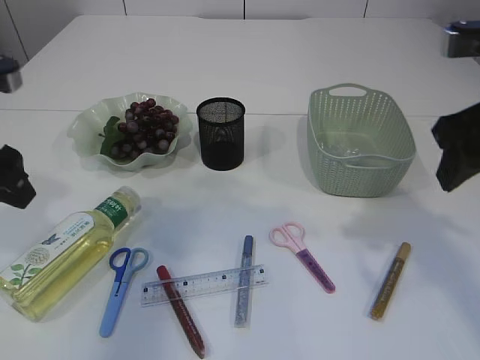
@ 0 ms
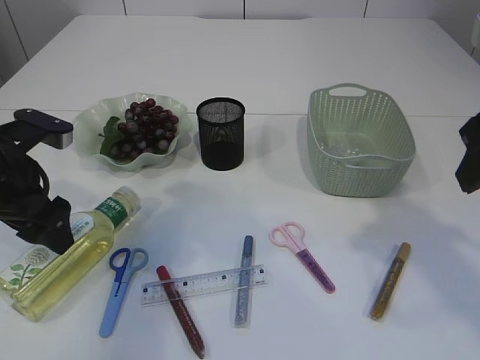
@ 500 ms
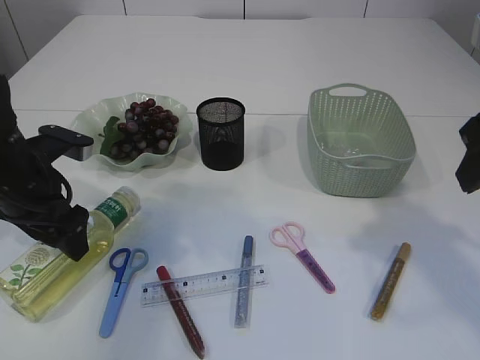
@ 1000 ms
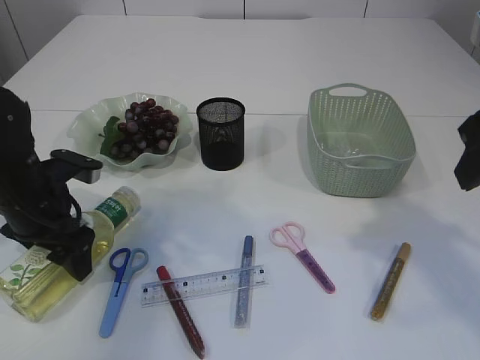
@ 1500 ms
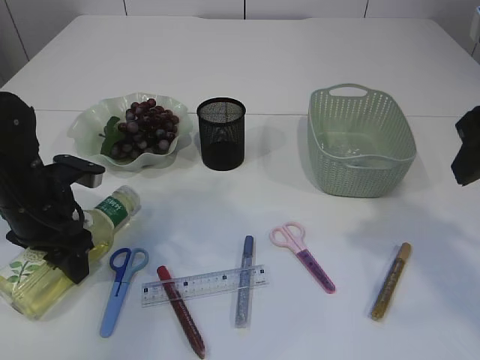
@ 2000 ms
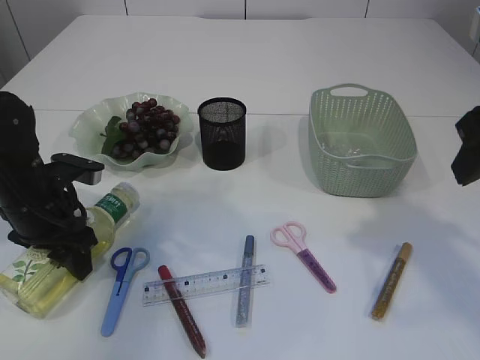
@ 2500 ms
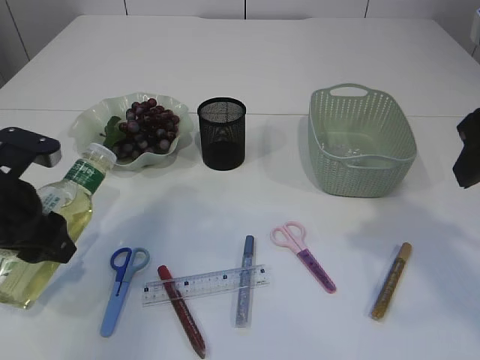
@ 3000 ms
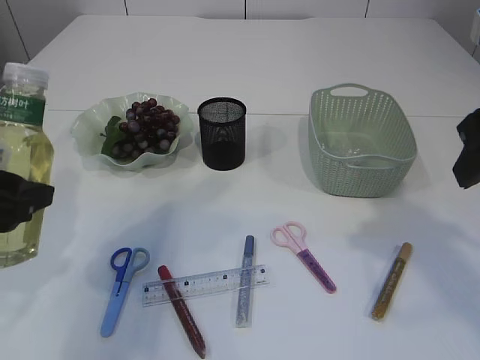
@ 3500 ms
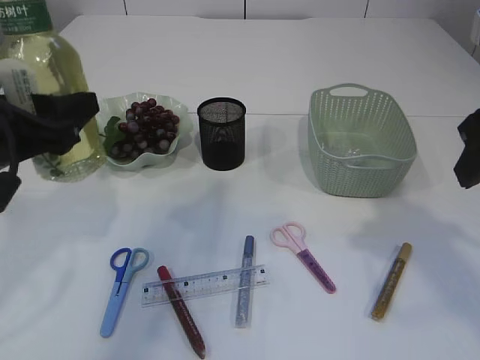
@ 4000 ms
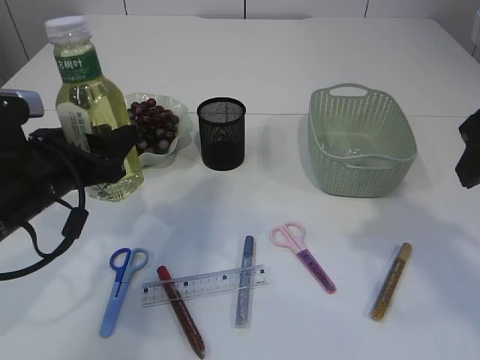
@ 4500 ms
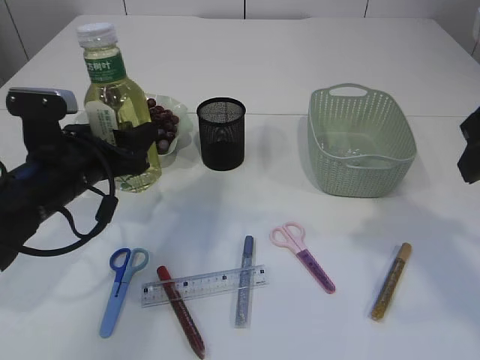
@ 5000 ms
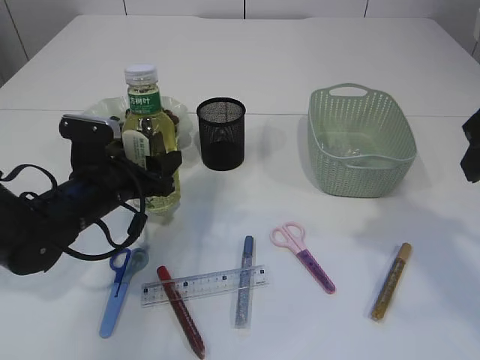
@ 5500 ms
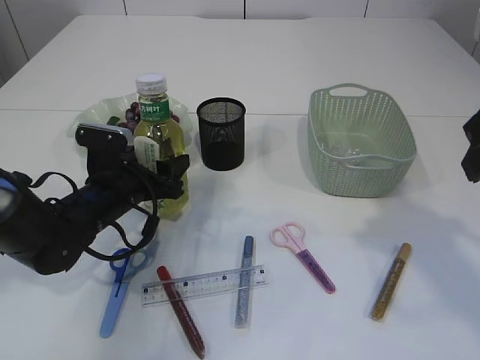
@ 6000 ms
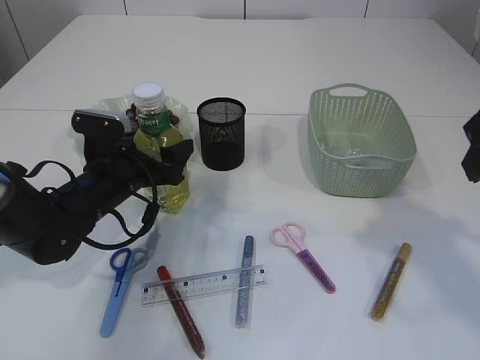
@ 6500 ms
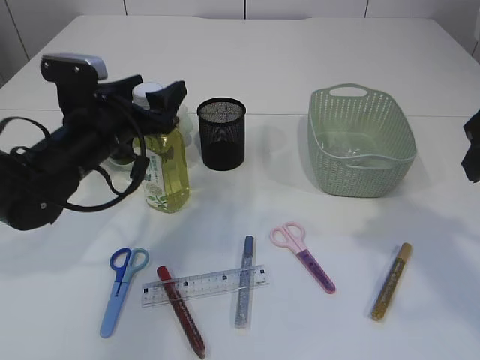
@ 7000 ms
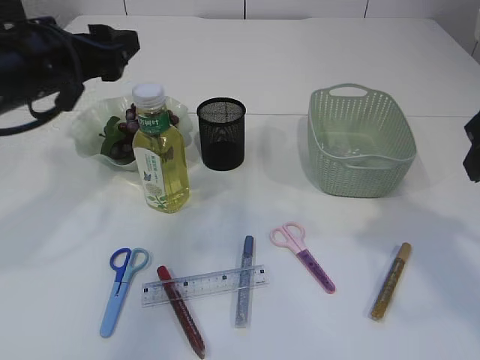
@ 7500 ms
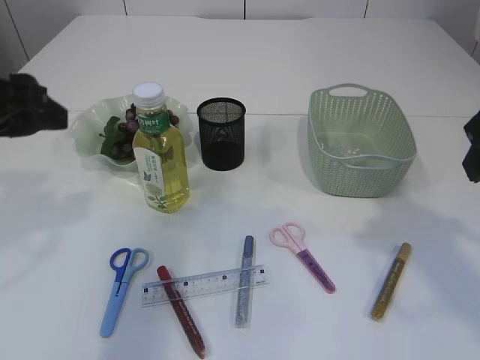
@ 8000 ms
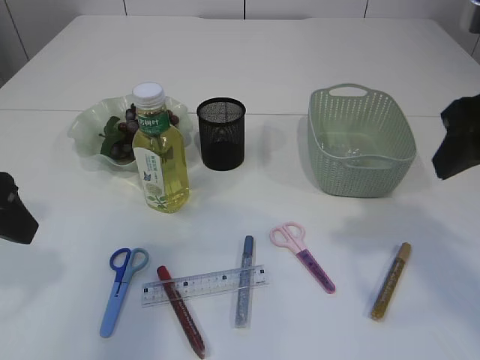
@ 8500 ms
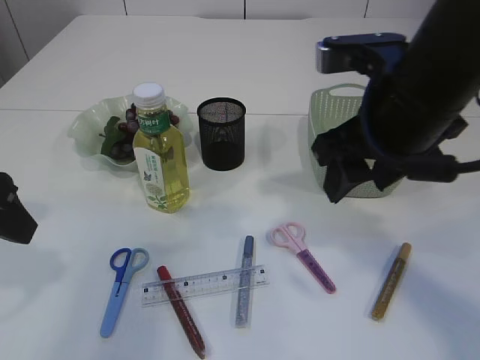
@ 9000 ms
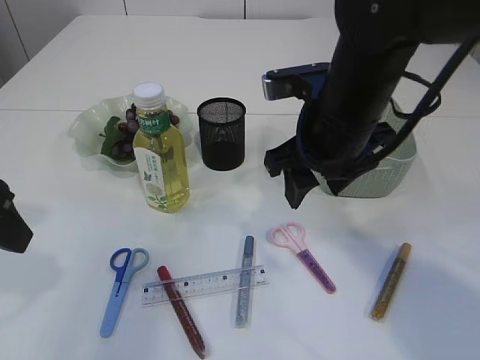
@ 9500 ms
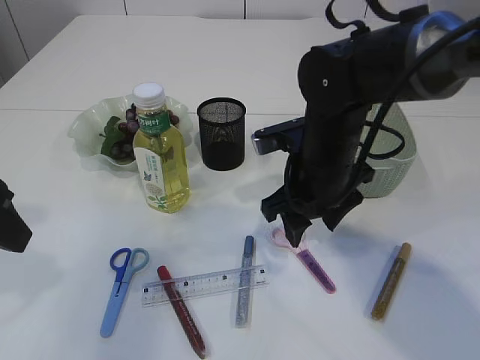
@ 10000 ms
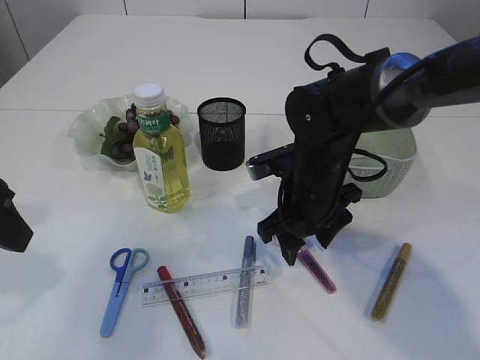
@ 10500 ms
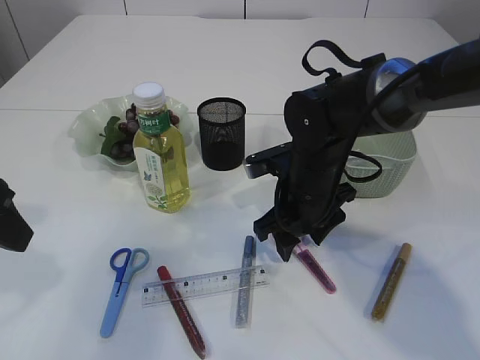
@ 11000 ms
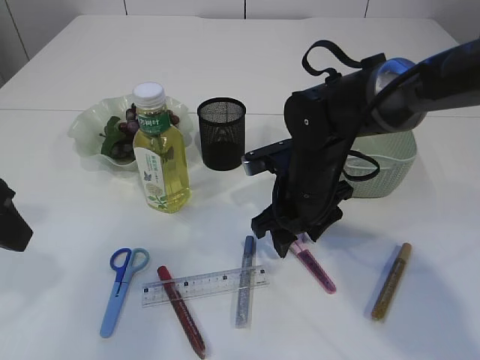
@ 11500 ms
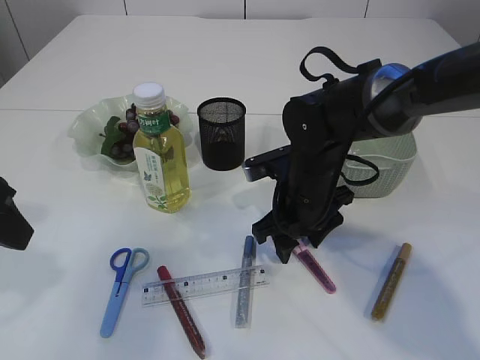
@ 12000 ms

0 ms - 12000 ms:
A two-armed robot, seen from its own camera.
Step, 0 ms - 2500 ms: Pick up the bottle with the left arm.
Step, 3000 ms - 7000 ms: Place the bottle.
0 ms - 2000 ms: The left gripper moves downward, some 15 cm.
2000 ms - 4000 ms: The left gripper heads upward and backward, covering roughly 15 cm.
4000 ms - 6000 ms: The left gripper travels downward and forward by approximately 20 cm.
6000 ms - 8000 ms: The left gripper is displaced upward and backward by approximately 25 cm.
8000 ms - 10000 ms: The left gripper changes place by roughly 5 cm. Meanwhile the right gripper heads to the left, downward and forward, covering roughly 25 cm.
10000 ms - 12000 ms: The right gripper moves downward, about 5 cm.

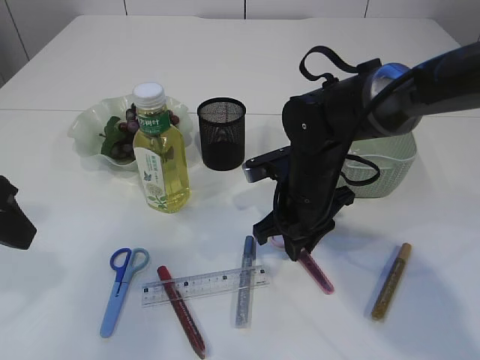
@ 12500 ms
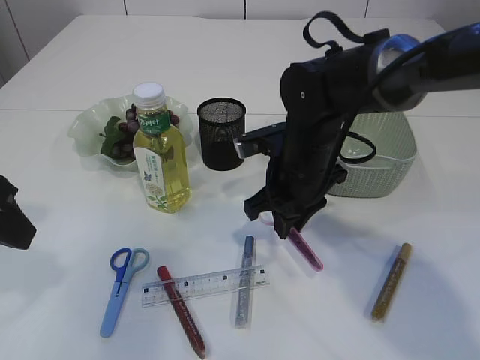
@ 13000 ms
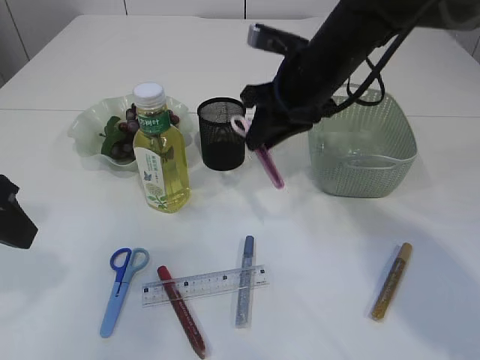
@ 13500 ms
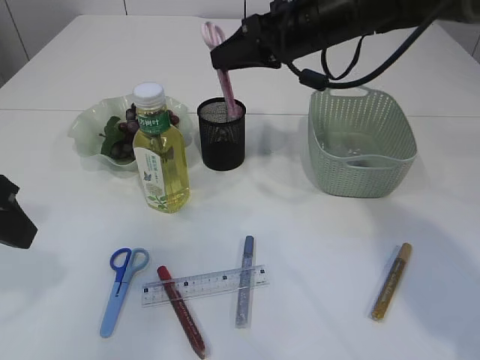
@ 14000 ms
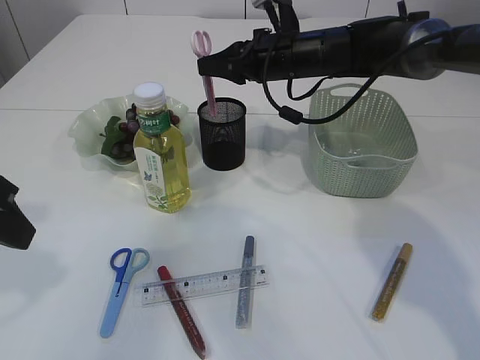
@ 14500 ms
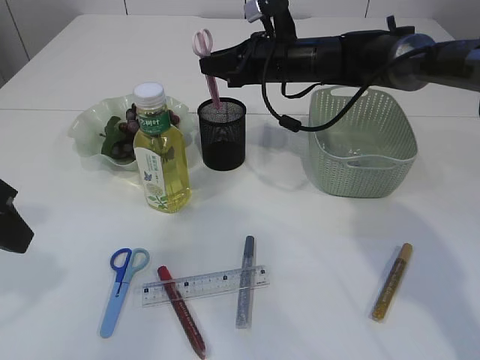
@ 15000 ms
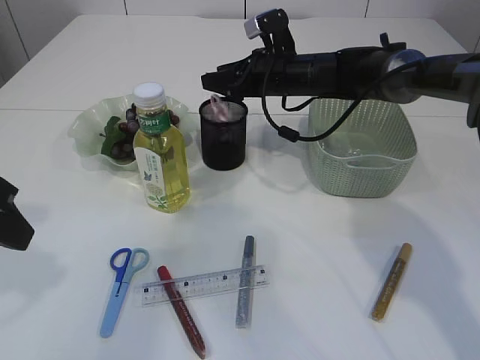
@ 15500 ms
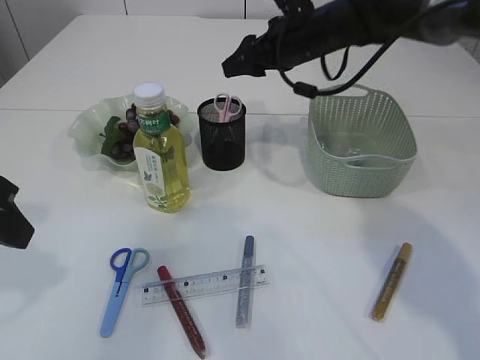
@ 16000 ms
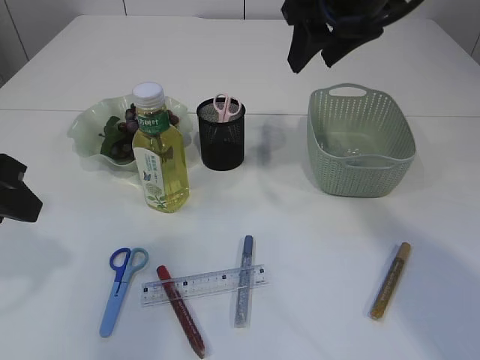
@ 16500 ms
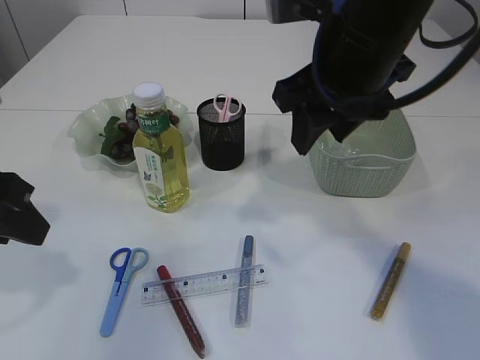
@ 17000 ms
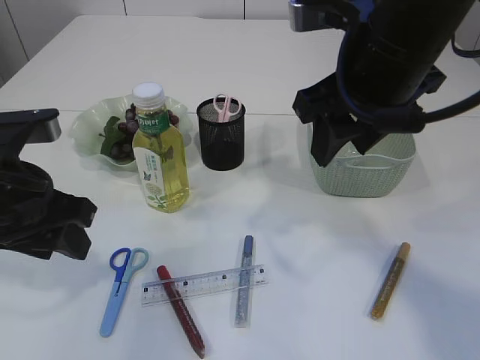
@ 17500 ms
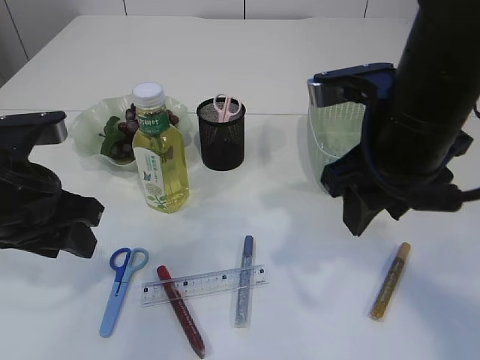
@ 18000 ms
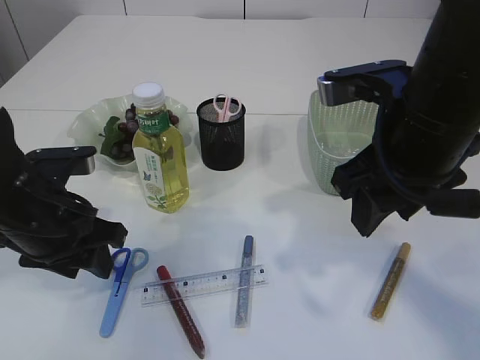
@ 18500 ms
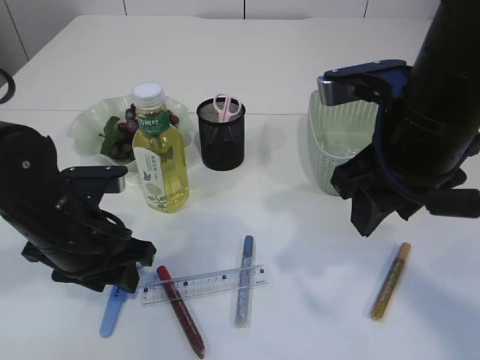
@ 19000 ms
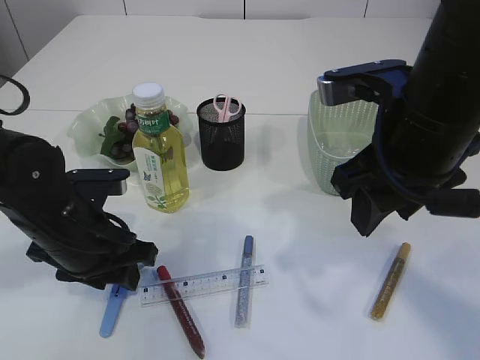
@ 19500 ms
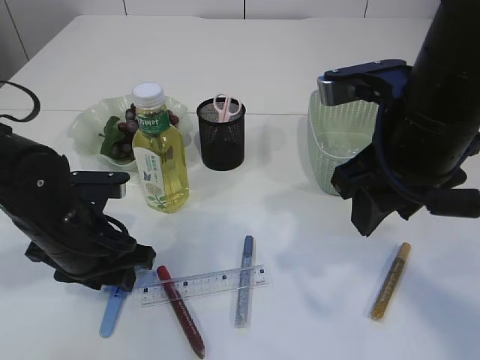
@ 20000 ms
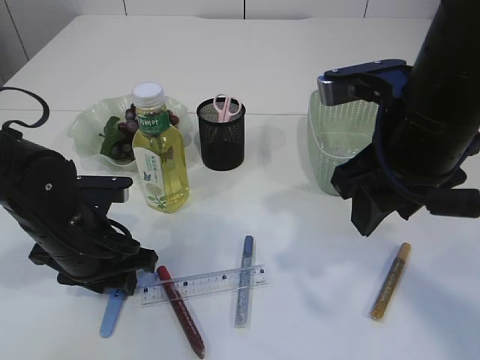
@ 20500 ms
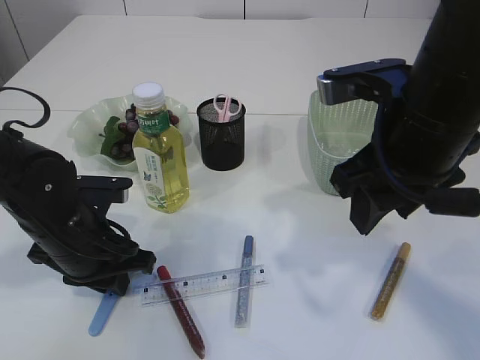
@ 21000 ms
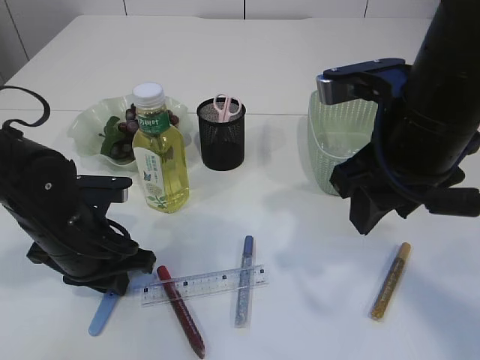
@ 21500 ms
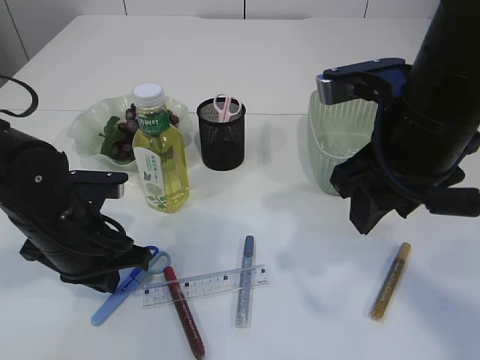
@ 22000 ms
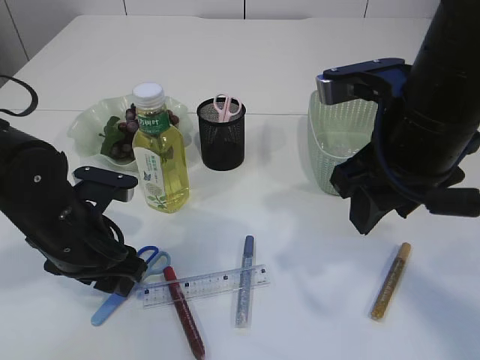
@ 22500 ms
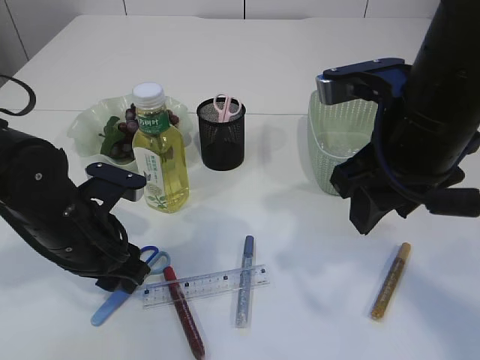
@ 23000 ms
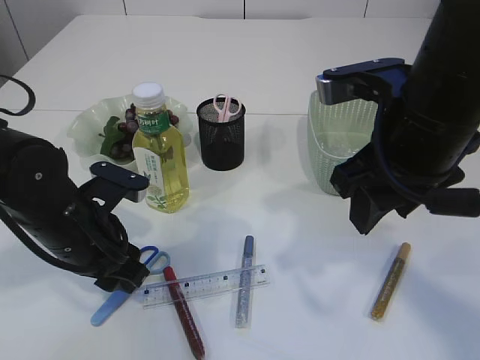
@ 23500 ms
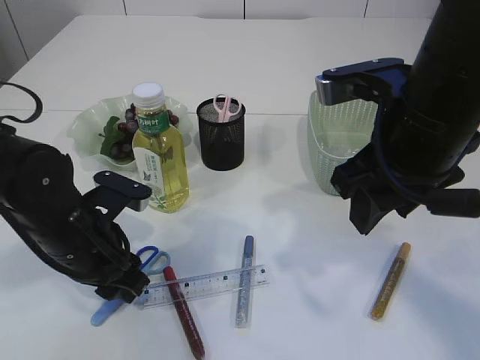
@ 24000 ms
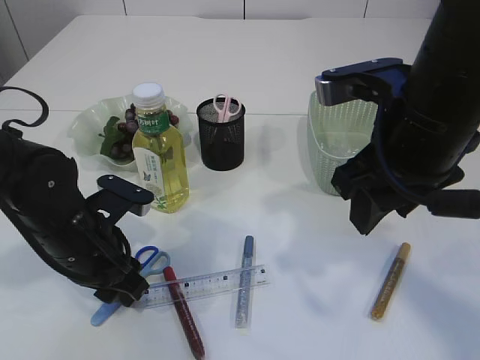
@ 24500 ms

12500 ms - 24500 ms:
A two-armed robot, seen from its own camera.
Step, 13500 ms - 16000 ms: Place the pink scissors into the pen holder.
12500 ms - 14500 ms: The right gripper travels forward and upward by some 15 cm.
14500 ms - 16500 ms: The right gripper travels upward and backward by roughly 15 cm, and opens.
16500 ms - 18500 ms: The right gripper moves backward and downward, some 15 cm, while the left gripper moves downward and to the right, roughly 10 cm.
18500 ms - 20500 ms: The left gripper goes some 5 cm downward.
20500 ms - 22500 ms: The left gripper closes, then reopens.
22500 ms - 24500 ms: The grippers stay close to where they were, moving slightly.

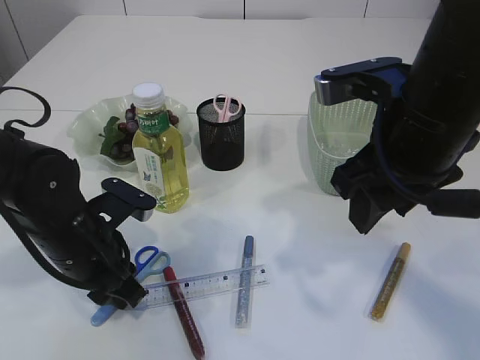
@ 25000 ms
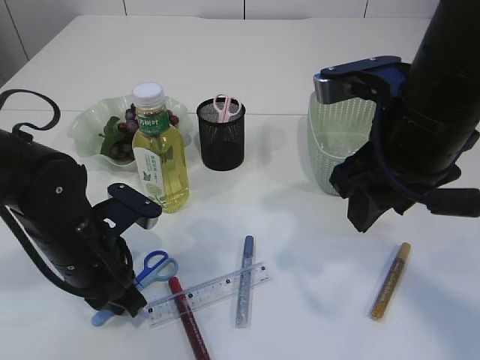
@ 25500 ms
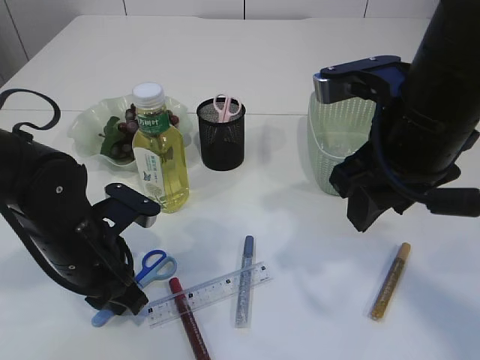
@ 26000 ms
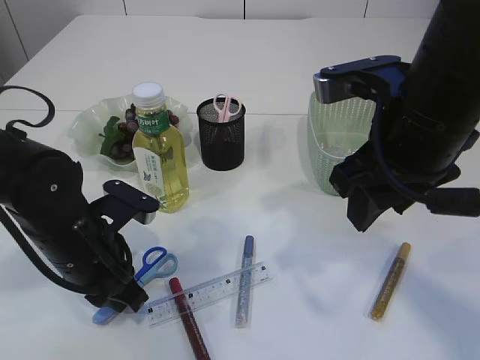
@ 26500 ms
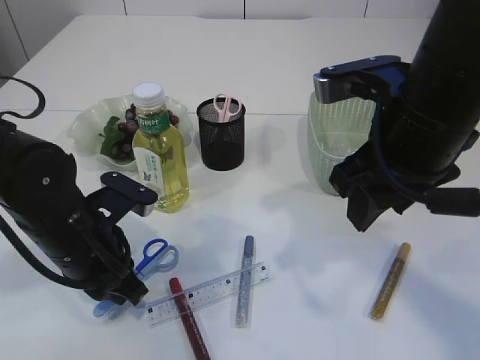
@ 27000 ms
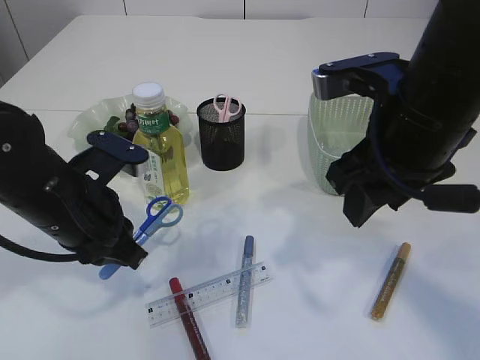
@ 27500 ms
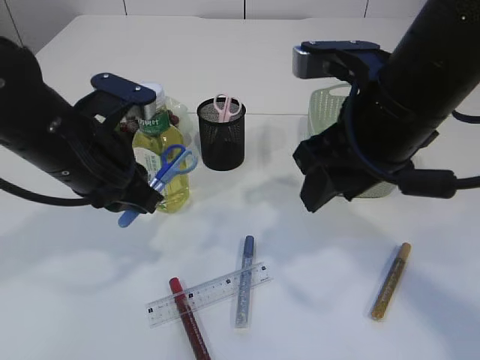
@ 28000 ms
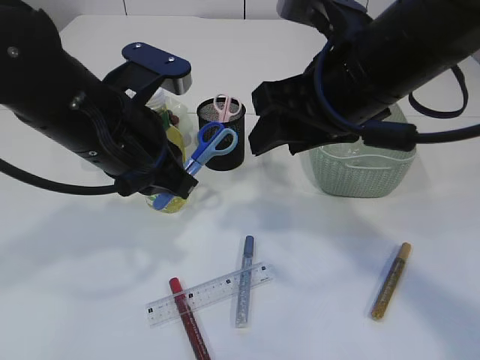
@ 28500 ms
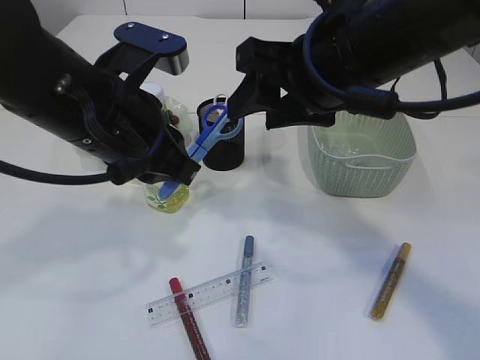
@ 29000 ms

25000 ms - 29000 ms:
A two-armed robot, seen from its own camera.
Step, 25000 ms - 27000 ms: pick up the blue scissors.
25000 ms - 27000 ms: The grippers make only small movements.
27000 ms - 29000 ms: The left gripper shifts some 15 cm upward, while the right gripper changes place by roughly 5 cm.
